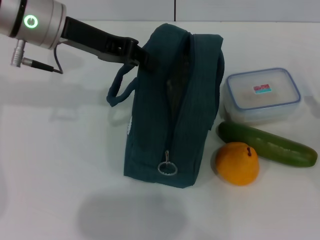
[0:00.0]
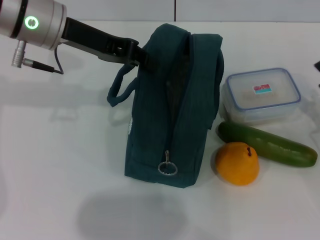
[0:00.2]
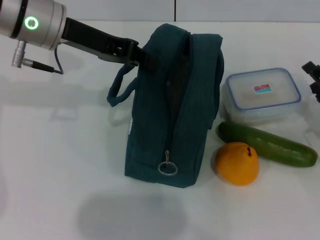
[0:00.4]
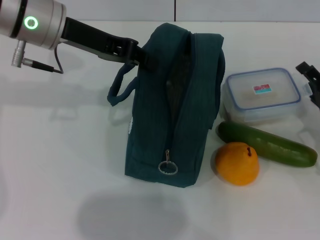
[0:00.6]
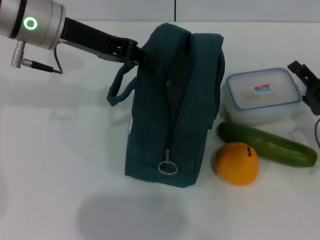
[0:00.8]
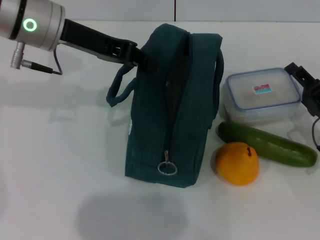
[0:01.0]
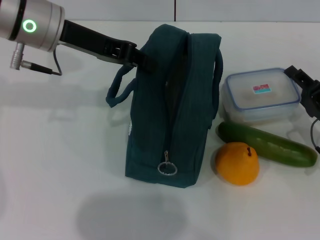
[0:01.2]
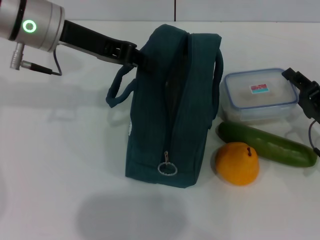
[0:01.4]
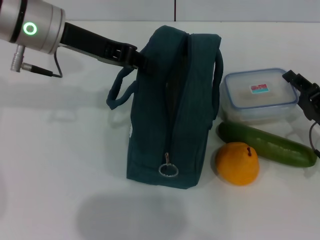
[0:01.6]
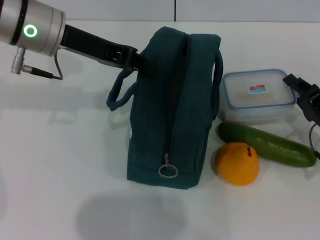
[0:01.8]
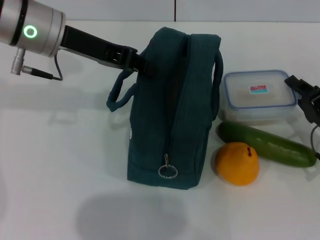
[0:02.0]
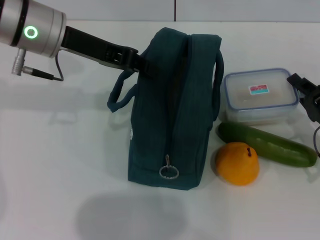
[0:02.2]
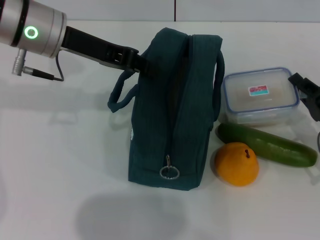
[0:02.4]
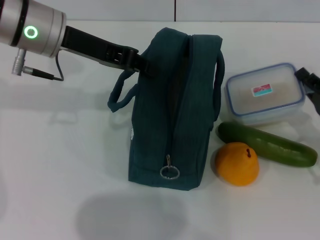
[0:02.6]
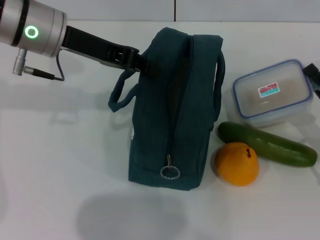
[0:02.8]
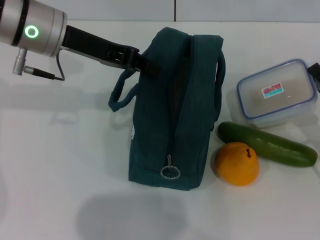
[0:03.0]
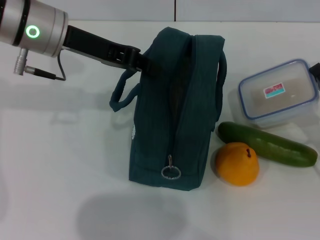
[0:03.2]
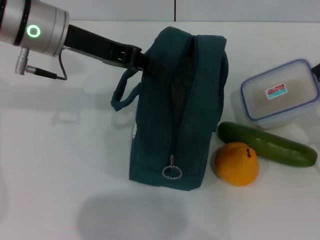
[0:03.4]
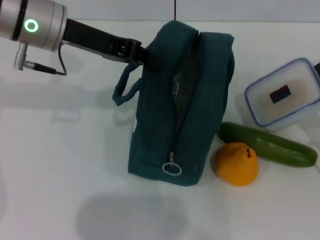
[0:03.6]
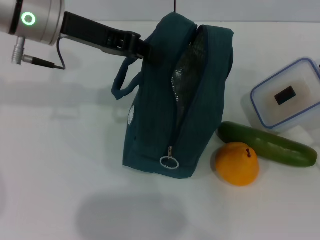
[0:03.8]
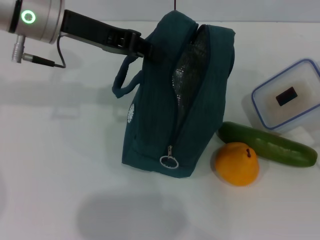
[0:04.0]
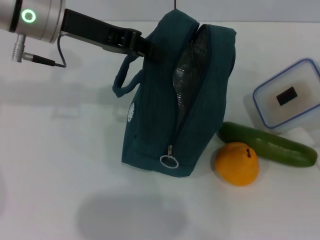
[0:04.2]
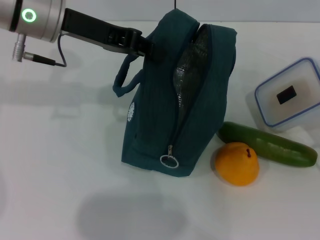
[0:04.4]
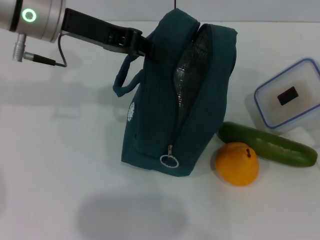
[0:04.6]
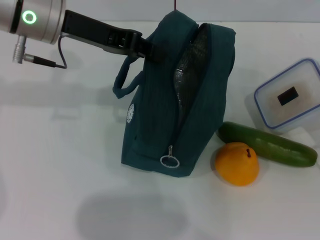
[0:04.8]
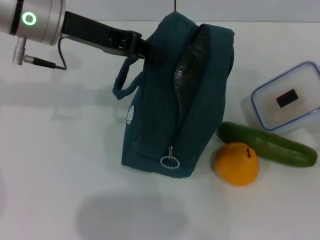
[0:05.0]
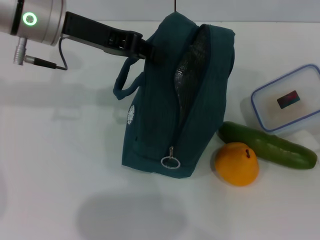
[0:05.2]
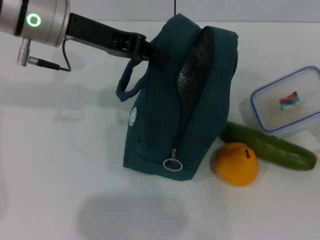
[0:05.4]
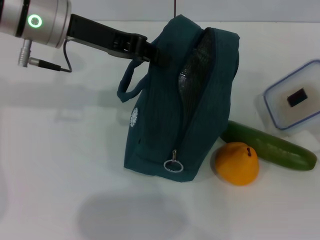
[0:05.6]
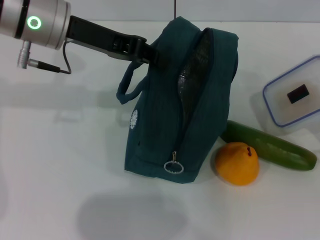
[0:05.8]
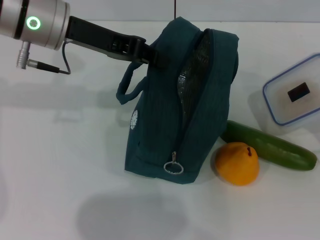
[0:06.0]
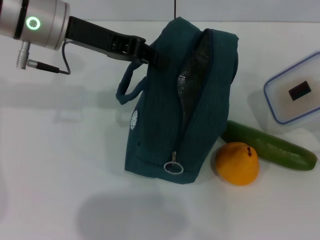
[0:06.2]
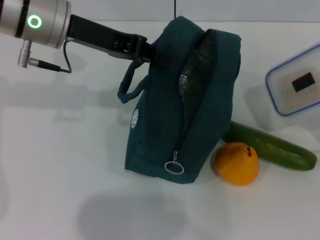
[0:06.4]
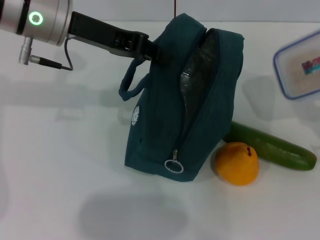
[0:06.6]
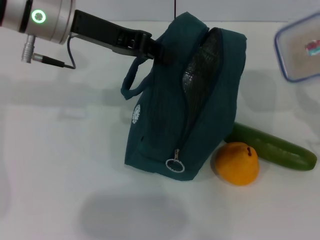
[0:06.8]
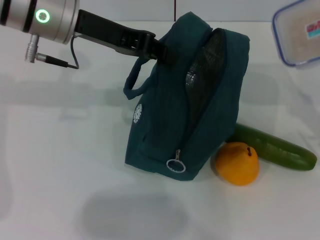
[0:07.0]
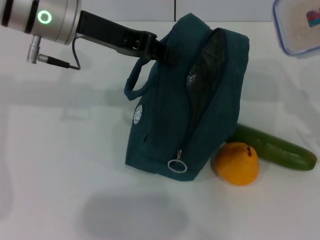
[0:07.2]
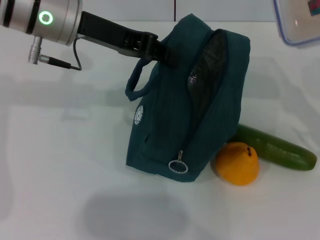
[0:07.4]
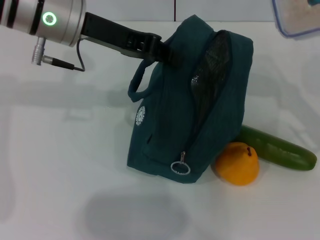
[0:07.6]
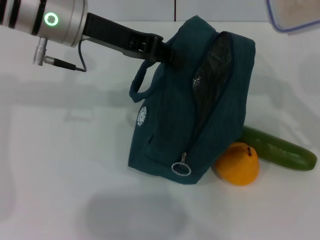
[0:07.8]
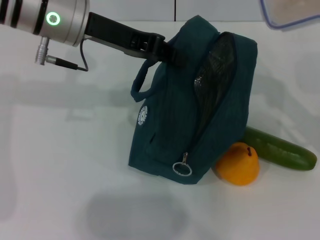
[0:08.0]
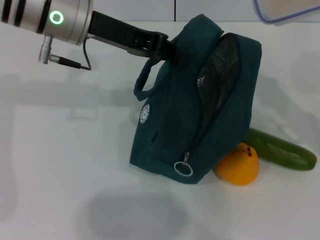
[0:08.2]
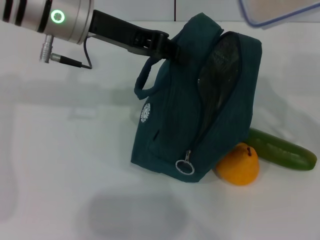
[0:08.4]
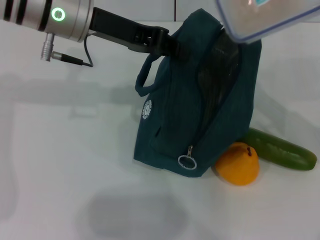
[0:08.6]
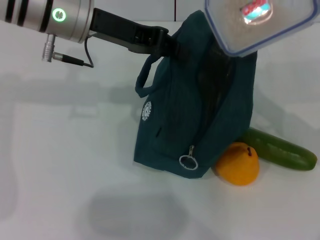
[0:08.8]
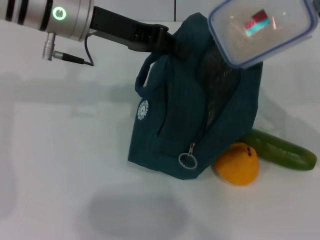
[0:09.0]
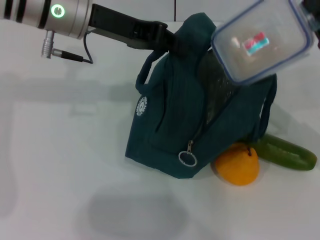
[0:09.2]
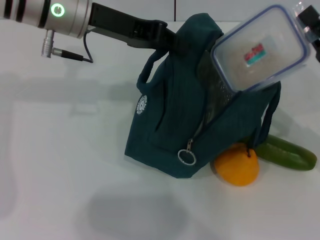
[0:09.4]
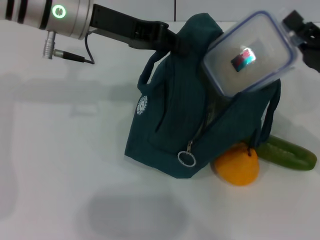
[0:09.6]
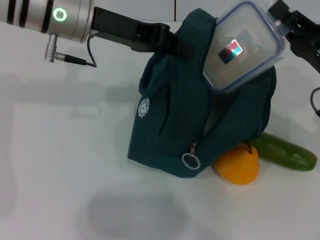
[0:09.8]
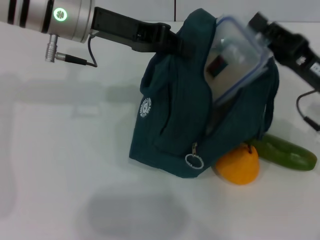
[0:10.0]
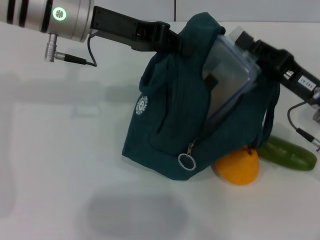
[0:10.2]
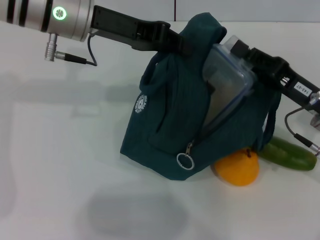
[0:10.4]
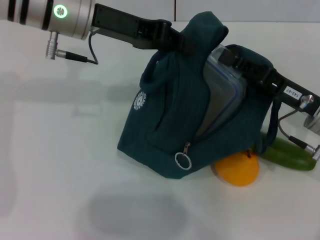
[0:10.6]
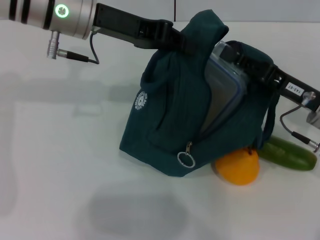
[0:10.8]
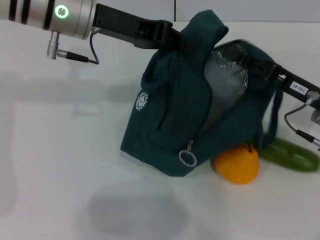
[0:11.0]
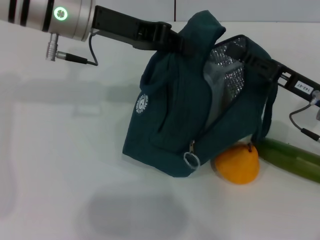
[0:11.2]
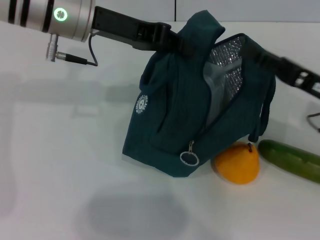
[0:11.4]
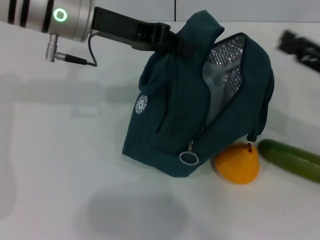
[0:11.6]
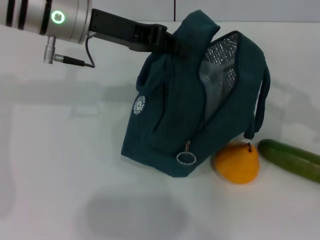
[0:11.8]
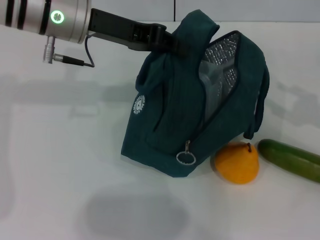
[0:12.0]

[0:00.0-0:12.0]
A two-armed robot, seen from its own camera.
Step, 0:00.0 to 0:02.2: Pick up the lunch box with your right hand.
Step, 0:02.4 to 0:11.2: Place the lunch box into the lunch bag with your right hand.
0:00.0 to 0:01.6: The right gripper goes approximately 5 cm to the left, and closes.
0:01.6 to 0:04.4: The grippers move only a little.
0:04.4 to 0:06.0: The grippers stay close to where they were, moving slightly.
0:06.0 to 0:07.6: The right gripper shifts about 10 cm upward.
0:07.6 to 0:09.0: The grippers move only a little.
0:09.0 to 0:10.4: The right gripper shifts by roughly 5 cm.
0:10.4 to 0:12.0: The right gripper moves to the right and upward, approximately 20 cm, and opens its fingers.

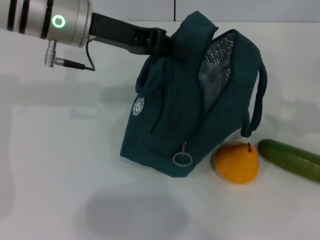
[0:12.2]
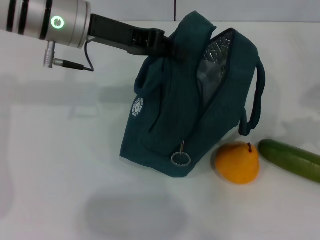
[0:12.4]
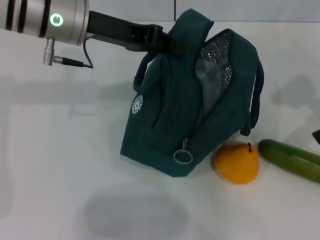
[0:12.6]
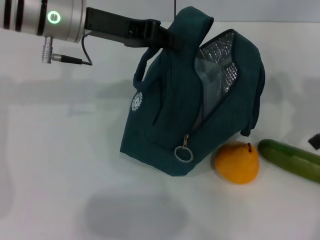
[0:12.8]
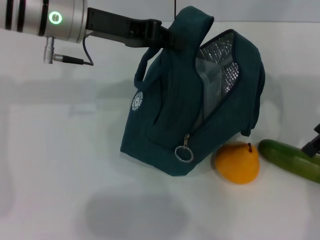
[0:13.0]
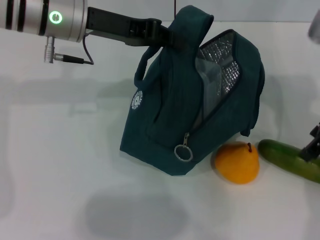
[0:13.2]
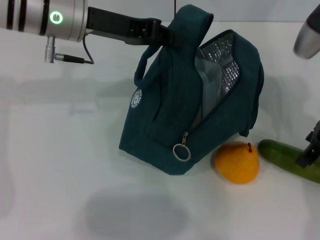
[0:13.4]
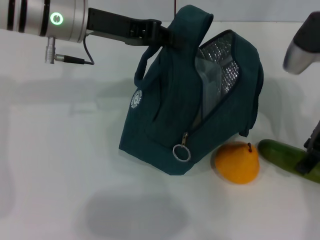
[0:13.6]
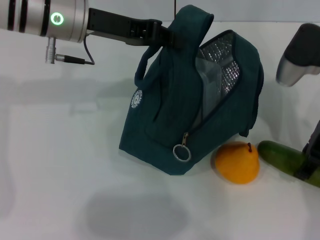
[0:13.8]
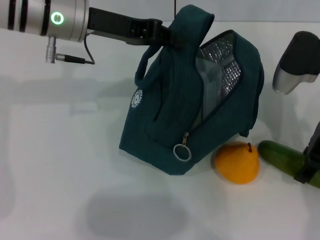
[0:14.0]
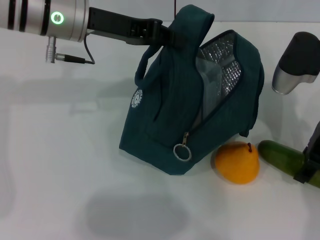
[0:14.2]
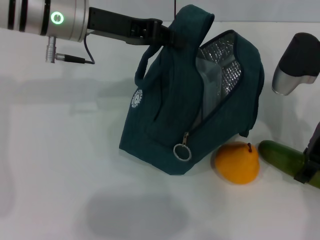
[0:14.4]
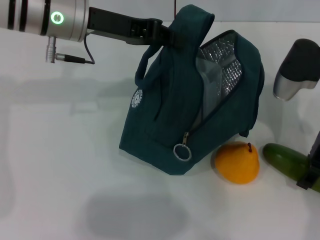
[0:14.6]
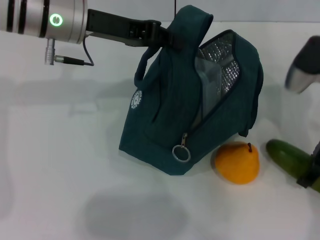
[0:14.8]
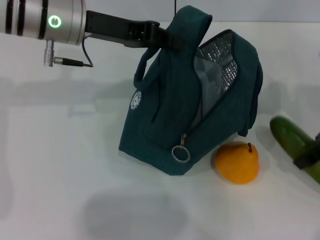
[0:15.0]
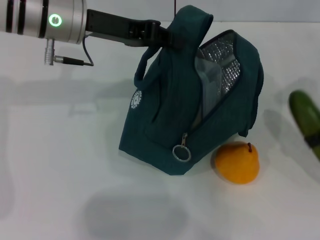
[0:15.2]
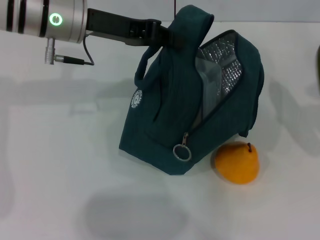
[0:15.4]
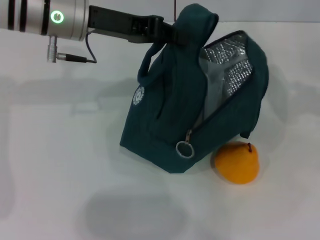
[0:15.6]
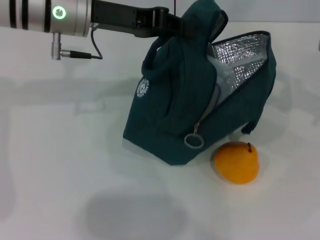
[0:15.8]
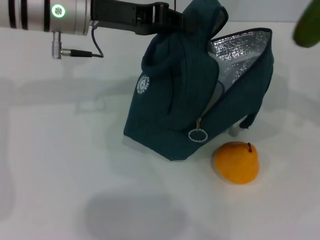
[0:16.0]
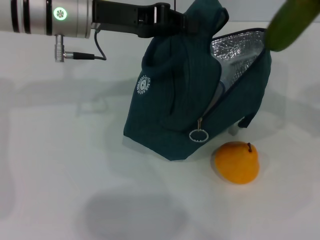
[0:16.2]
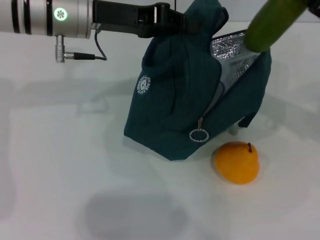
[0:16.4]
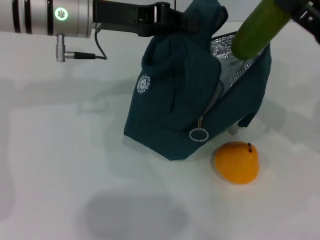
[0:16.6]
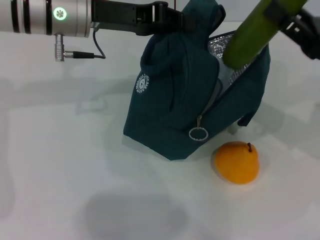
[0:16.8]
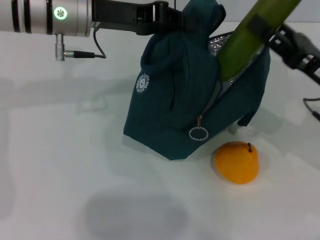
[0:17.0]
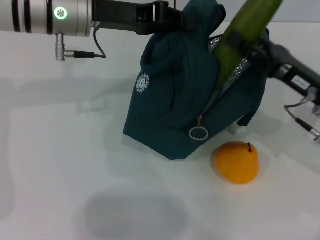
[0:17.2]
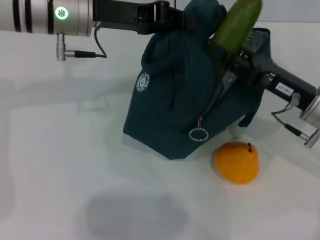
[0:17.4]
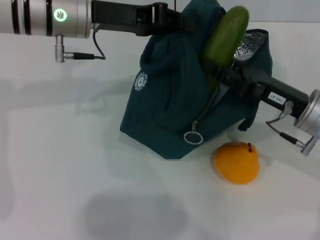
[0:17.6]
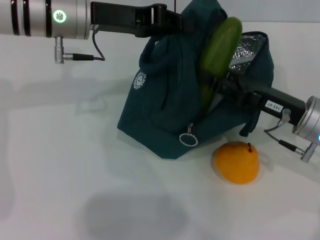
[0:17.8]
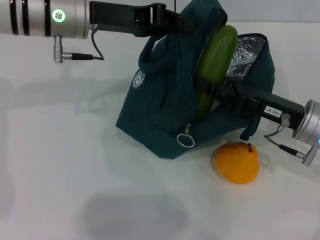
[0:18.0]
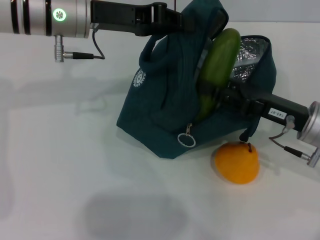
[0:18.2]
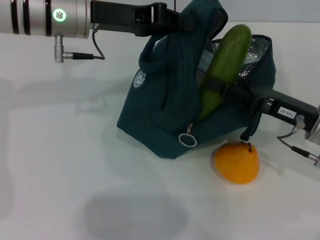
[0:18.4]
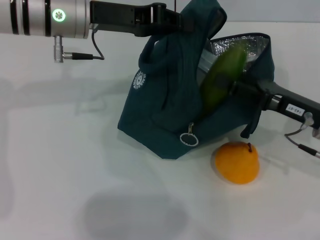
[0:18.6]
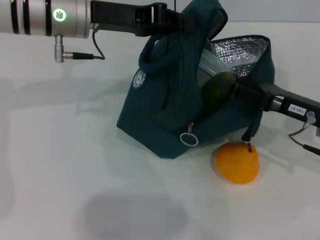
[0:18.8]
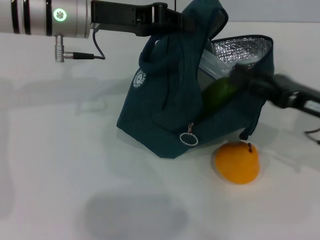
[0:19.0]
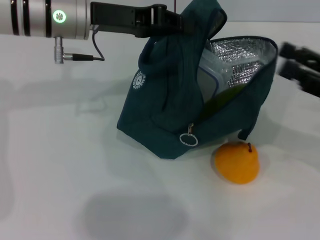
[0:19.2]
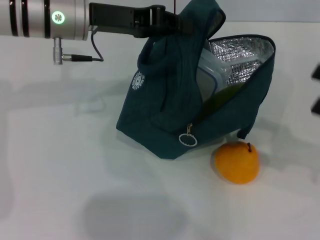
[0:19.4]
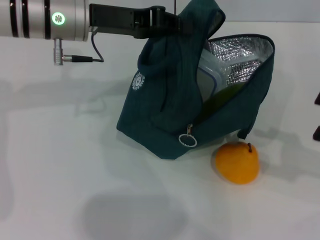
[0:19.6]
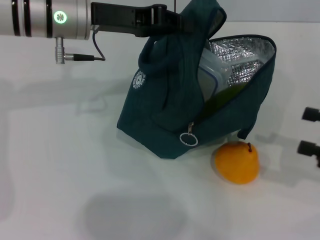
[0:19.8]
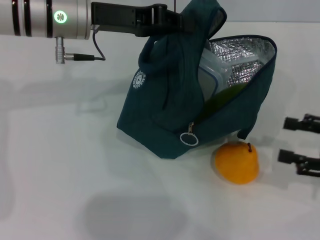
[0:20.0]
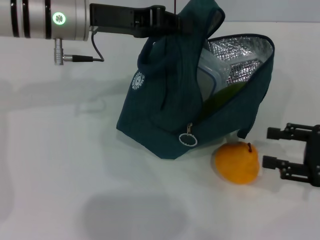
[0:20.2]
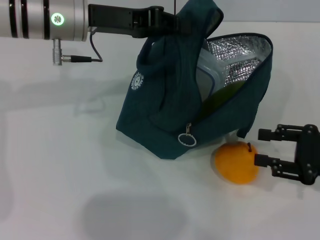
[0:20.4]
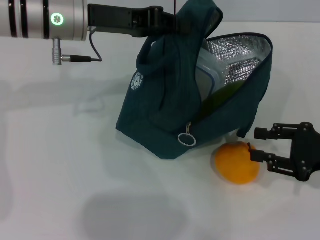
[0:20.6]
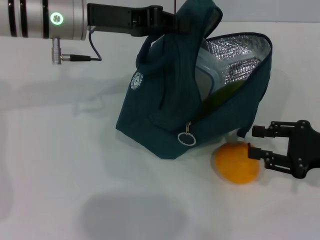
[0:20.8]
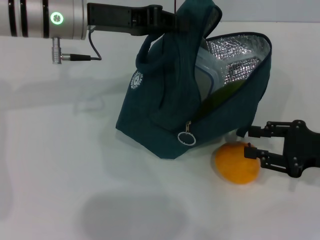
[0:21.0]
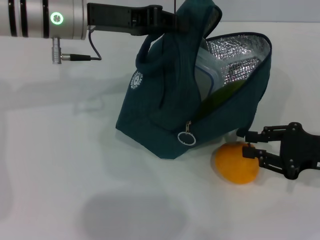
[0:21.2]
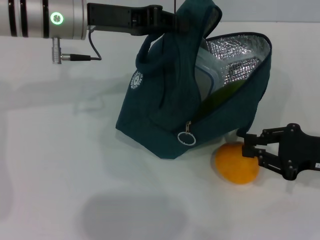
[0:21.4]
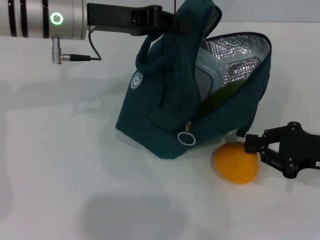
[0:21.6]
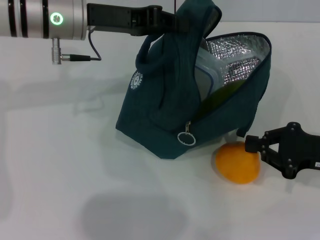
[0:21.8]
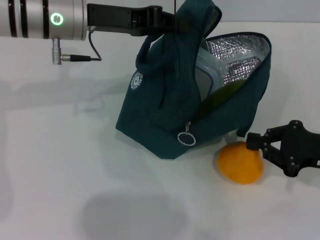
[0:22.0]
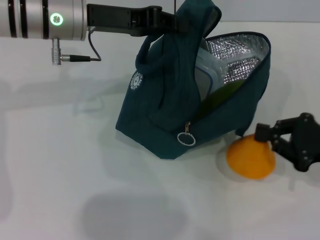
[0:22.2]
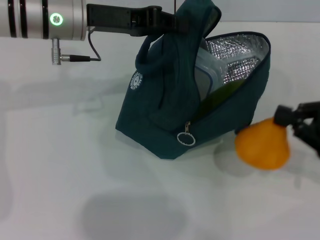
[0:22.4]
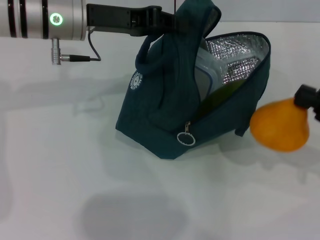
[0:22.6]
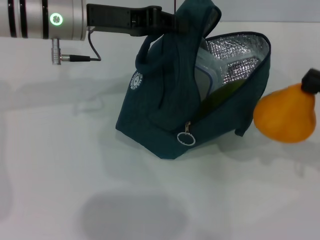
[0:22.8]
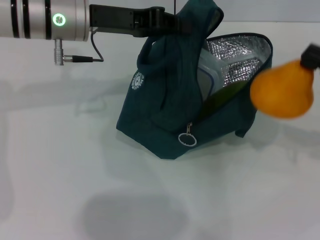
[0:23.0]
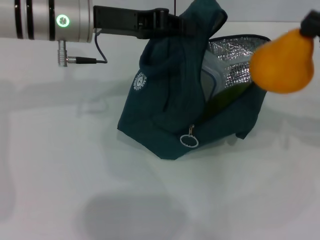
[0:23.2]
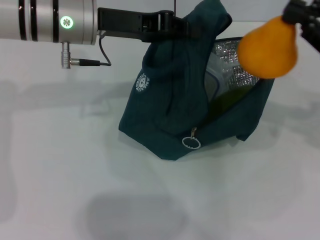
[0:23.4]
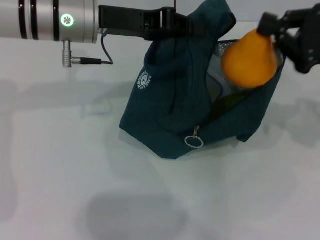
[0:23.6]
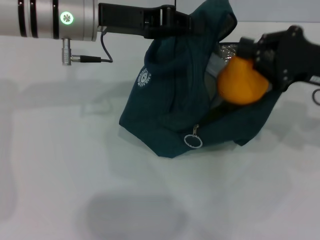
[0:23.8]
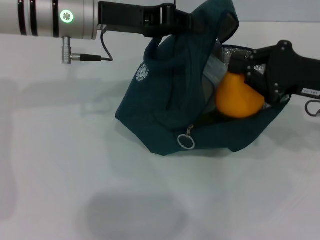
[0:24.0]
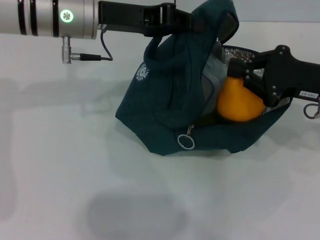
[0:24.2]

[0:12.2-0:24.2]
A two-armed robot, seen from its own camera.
Step, 0:12.2 to 0:14.4: Pick up the cucumber with your right hand.
Step, 0:14.6 to 0:18.8: Put the cucumber into the lunch bag with your right hand.
Step, 0:19.0 to 0:21.8: Grab the pear with your right hand.
0:12.2 to 0:13.8: The right gripper travels to the left by approximately 15 cm.
0:13.8 to 0:15.2: The right gripper goes some 10 cm to the right.
0:15.2 to 0:16.6: The right gripper travels to the right and back again, some 5 cm each way.
0:16.6 to 0:18.2: The right gripper is displaced downward and to the left by about 10 cm.
0:18.2 to 0:19.8: The right gripper travels to the right and backward by some 15 cm.
0:19.8 to 0:21.2: The right gripper travels to the left by some 5 cm, and closes up.
0:21.2 to 0:22.6: The right gripper moves roughly 5 cm, and closes its fingers.
0:22.6 to 0:24.2: The right gripper moves to the left and forward, roughly 10 cm.
